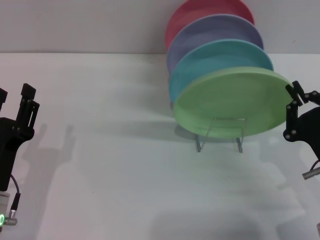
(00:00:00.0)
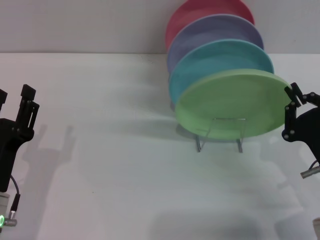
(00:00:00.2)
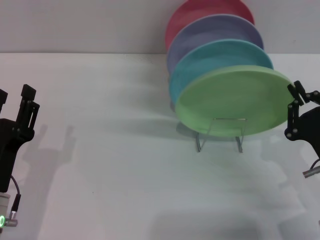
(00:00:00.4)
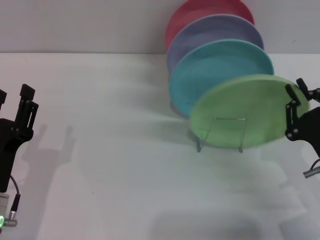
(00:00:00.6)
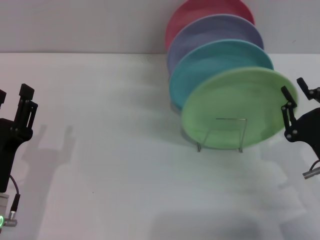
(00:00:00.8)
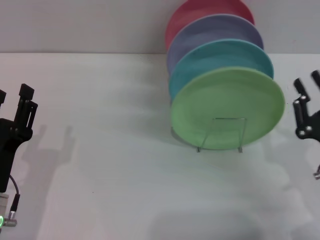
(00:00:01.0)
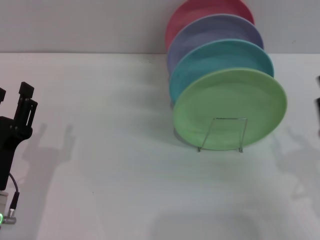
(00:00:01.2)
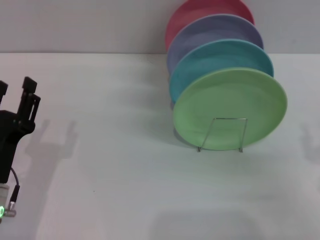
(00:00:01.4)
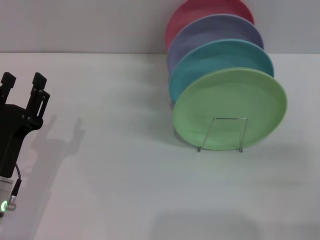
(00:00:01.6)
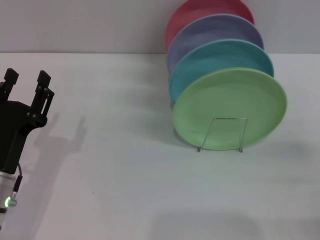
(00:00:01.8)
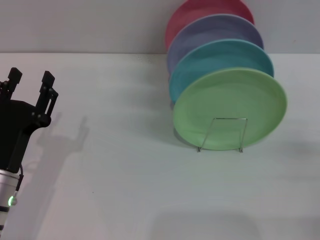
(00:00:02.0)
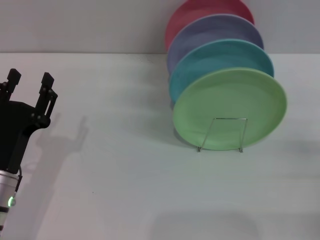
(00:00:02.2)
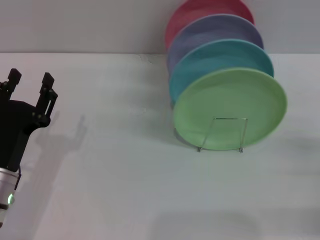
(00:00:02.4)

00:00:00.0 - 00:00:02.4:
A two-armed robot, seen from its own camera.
Task of the whole recording: Grip the plate with one hand, pass it to the other, then set it on the shelf.
00:00:01.2 - 00:00:02.4: The right gripper goes about 10 cm to the right, and opens its fingers.
